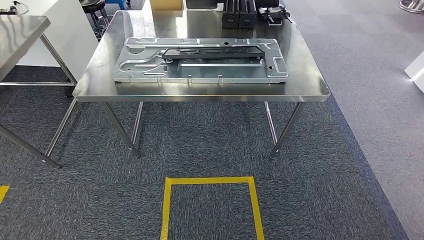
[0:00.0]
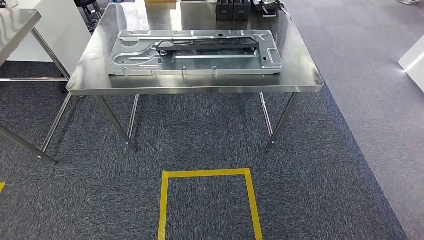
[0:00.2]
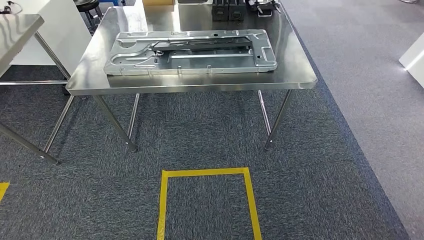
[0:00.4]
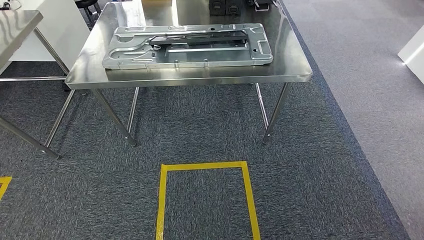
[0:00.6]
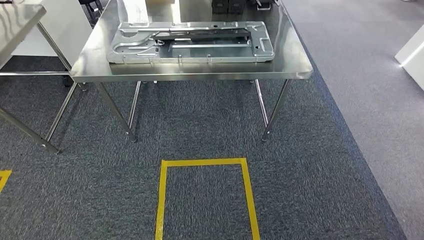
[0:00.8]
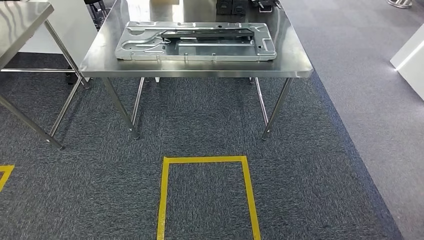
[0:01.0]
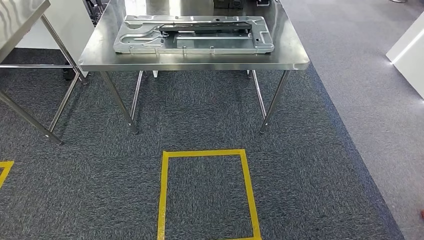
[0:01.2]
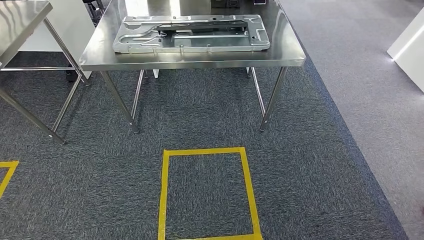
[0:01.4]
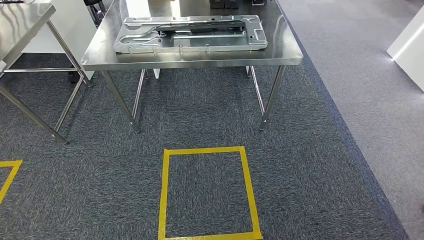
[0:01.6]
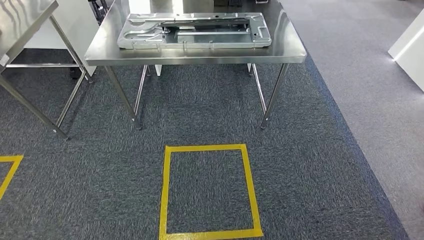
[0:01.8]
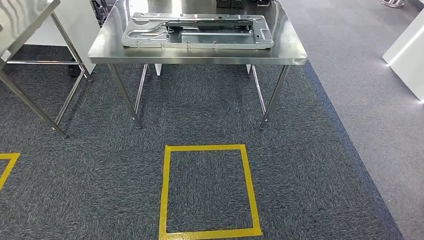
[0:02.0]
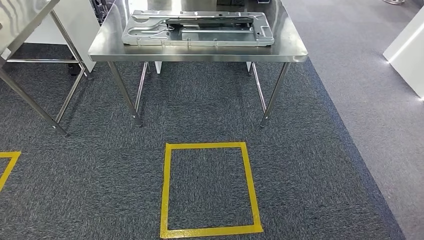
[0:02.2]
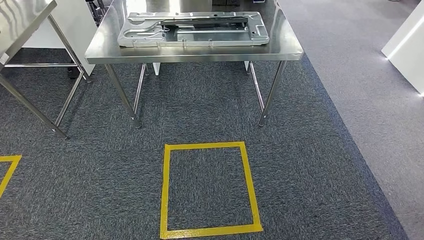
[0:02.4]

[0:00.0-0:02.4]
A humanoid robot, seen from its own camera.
Step, 0:00.0 to 0:02.4: Move to the initial position of the shelf.
0:01.2 to 0:02.4: The right hand shifts by approximately 5 cm.

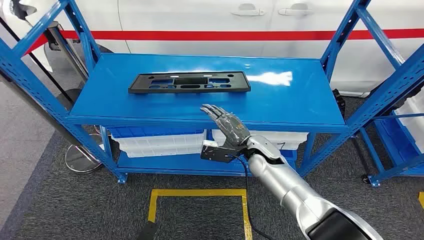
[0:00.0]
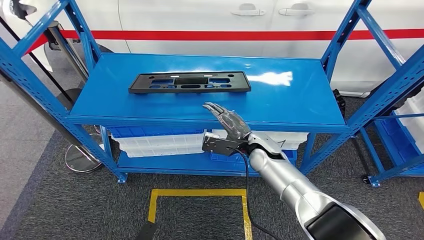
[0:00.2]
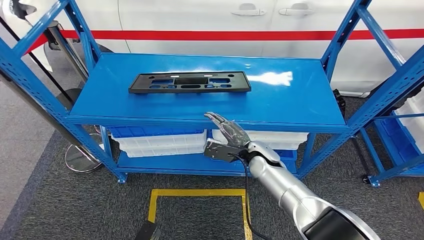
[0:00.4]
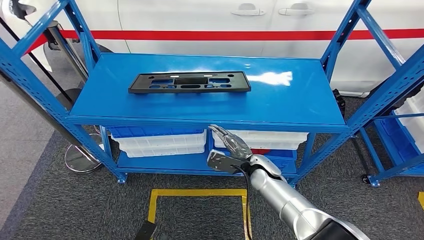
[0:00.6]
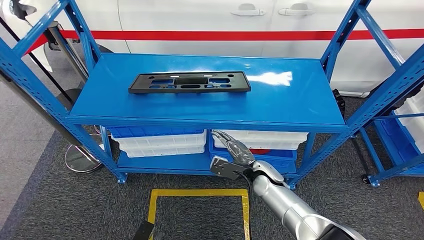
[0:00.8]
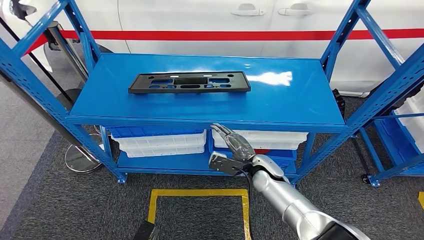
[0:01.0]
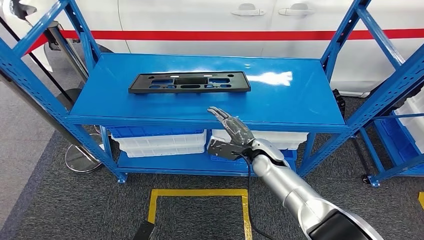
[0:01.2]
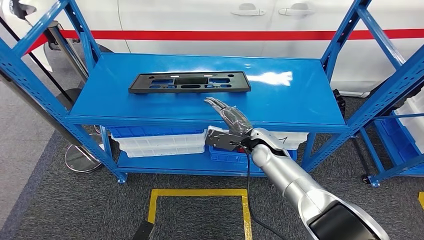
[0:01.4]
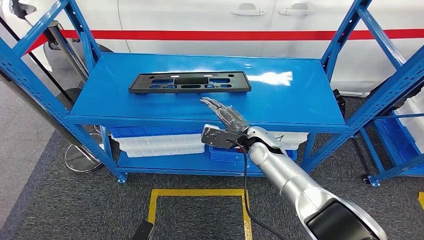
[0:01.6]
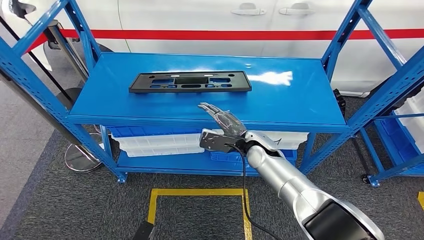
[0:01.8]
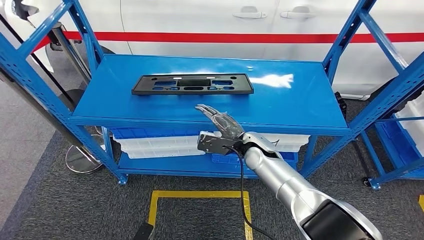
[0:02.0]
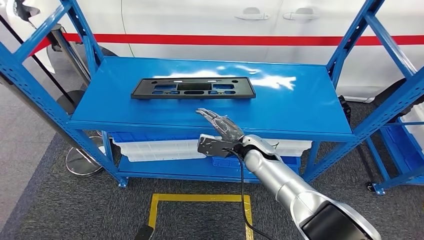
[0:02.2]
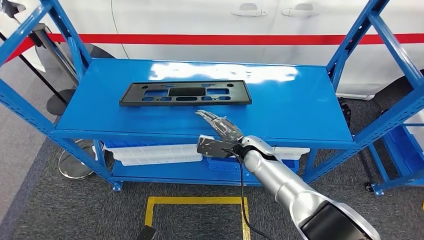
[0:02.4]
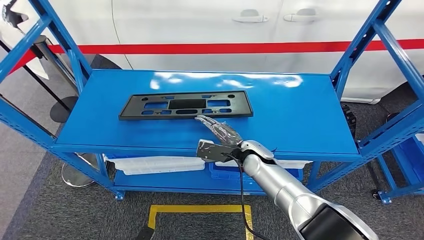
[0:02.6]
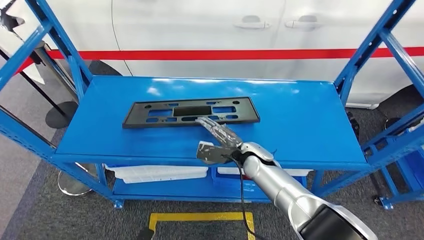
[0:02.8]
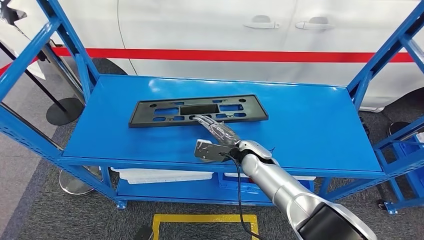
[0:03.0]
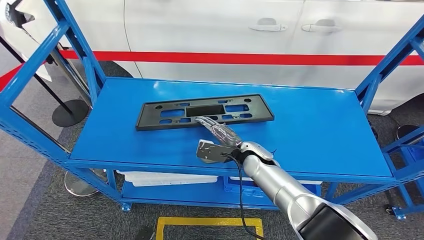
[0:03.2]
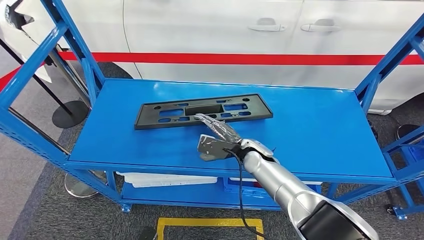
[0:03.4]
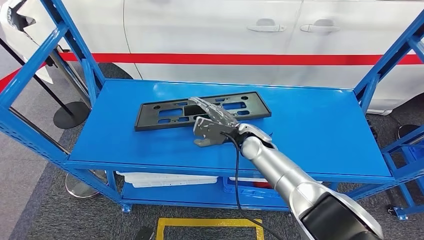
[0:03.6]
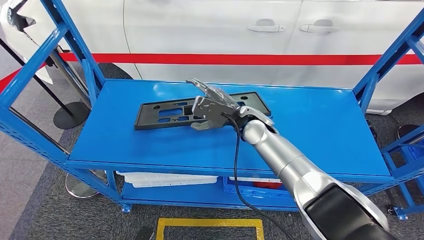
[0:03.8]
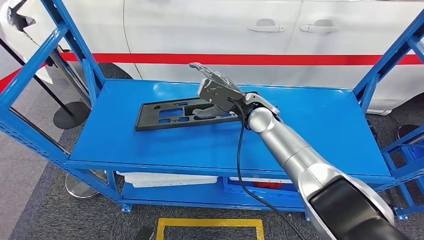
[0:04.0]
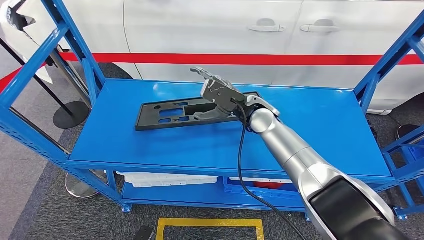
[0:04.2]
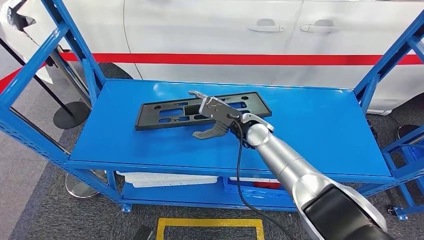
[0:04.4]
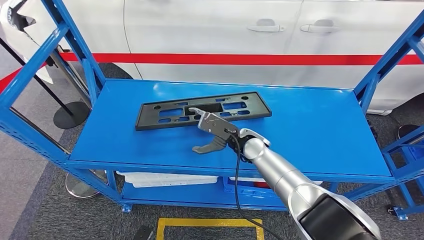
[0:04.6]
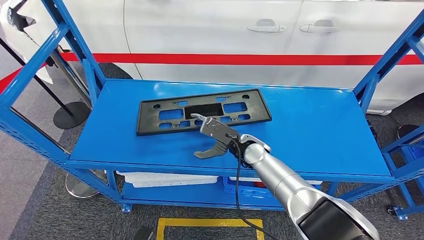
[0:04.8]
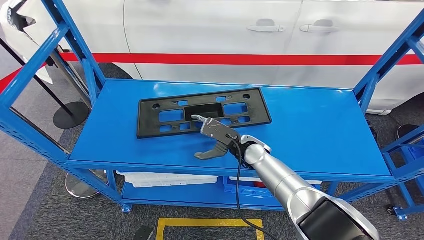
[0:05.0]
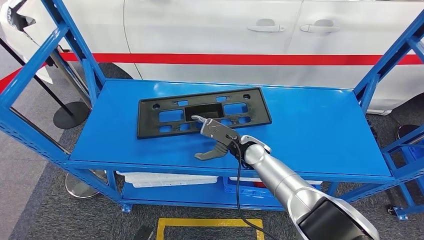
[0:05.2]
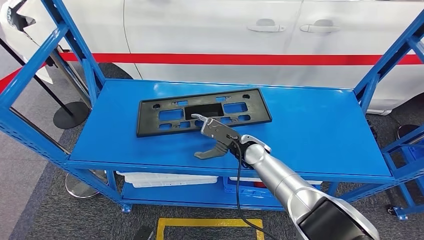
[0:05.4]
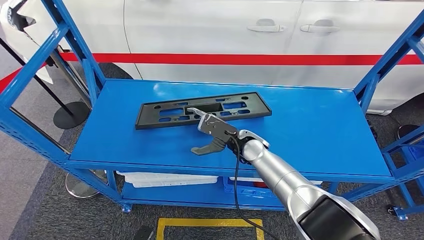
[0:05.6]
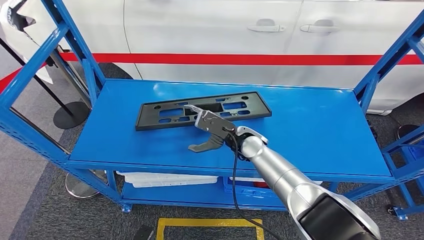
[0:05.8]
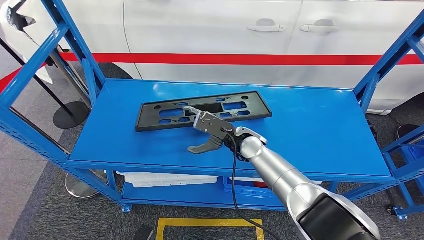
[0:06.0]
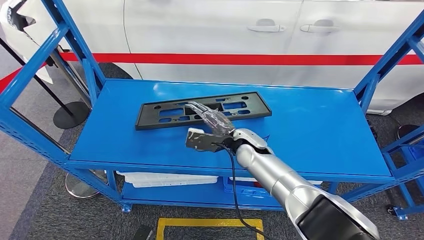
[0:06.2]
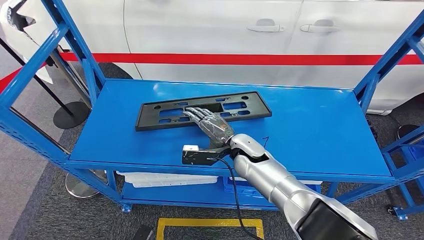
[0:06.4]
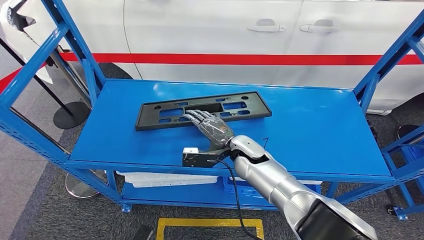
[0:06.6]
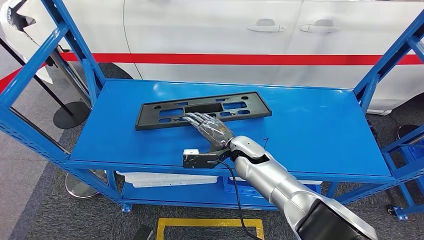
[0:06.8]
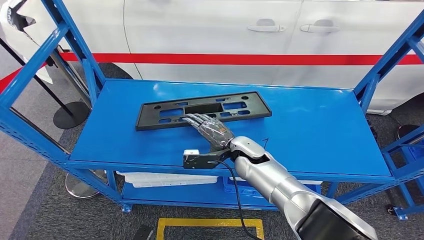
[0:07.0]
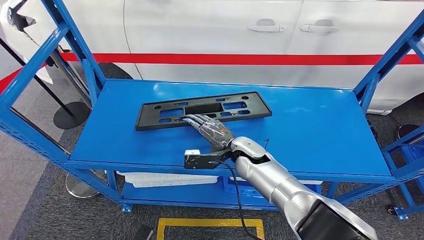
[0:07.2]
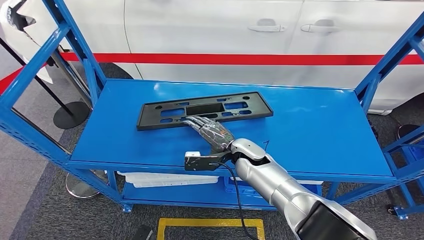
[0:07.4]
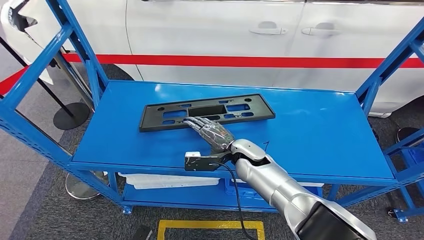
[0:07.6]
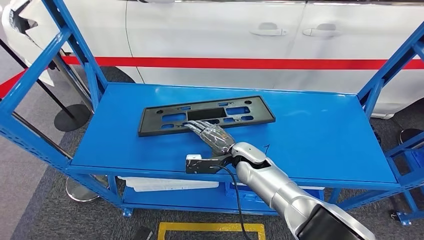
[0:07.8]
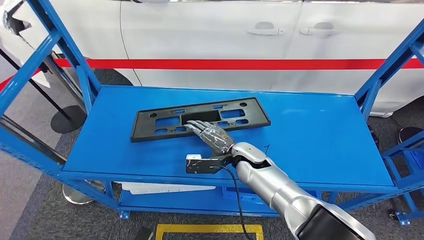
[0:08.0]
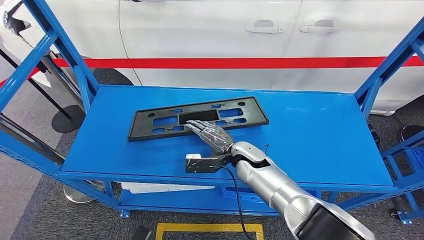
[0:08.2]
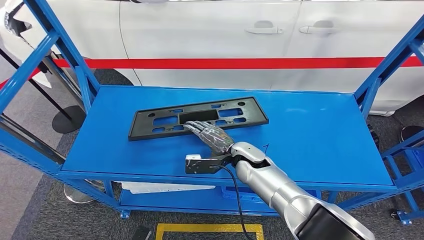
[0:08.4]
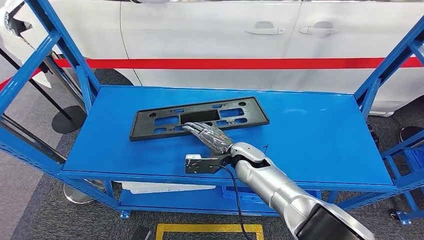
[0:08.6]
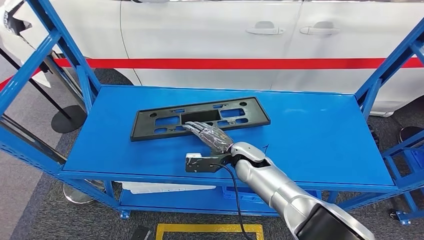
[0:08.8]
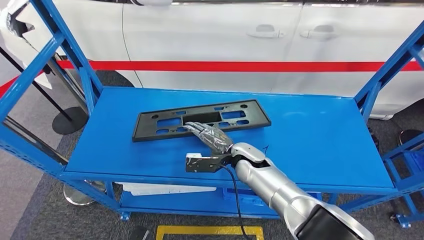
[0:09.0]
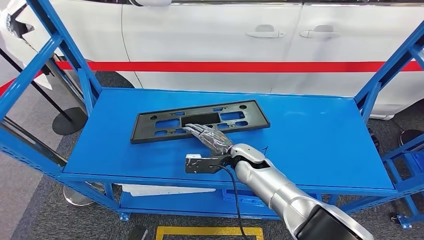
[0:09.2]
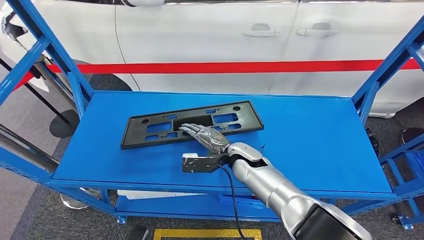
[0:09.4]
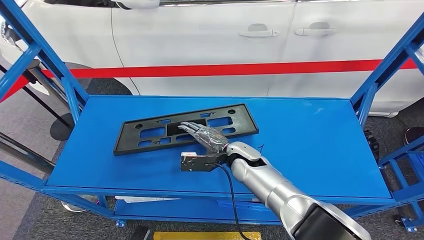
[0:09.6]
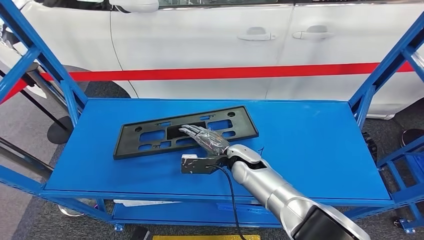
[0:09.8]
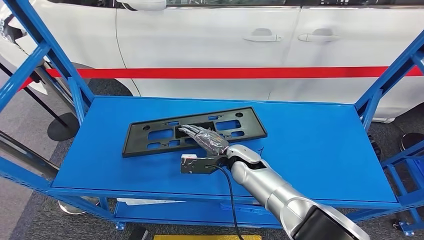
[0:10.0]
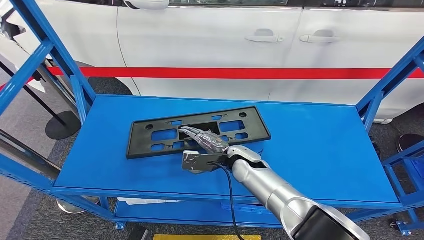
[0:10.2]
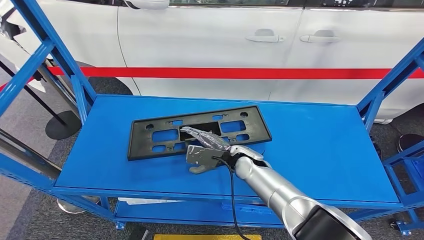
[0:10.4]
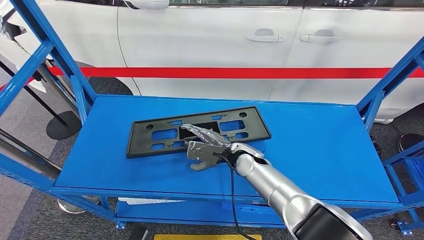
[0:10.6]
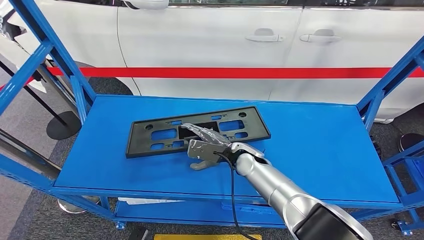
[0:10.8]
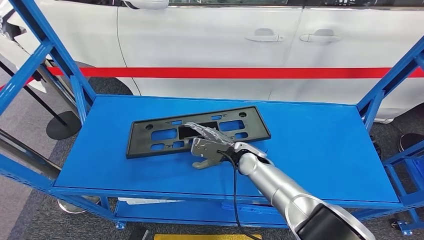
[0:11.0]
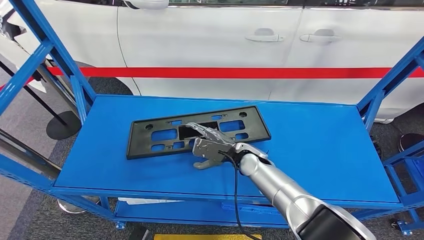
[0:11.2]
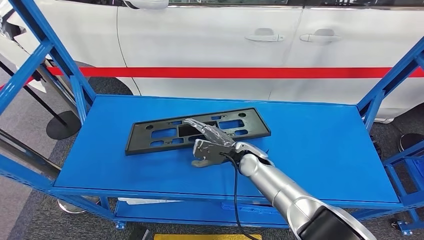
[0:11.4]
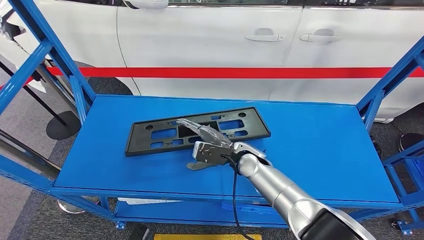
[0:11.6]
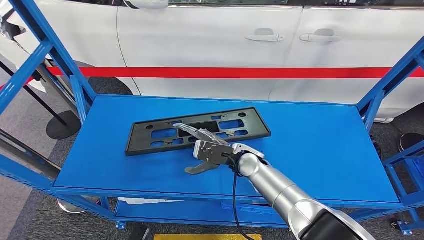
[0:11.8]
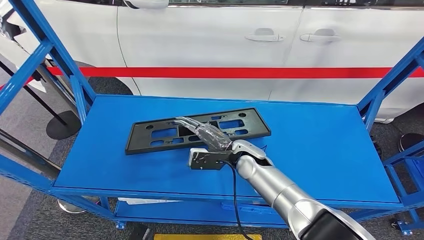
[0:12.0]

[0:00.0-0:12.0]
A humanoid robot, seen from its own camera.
0:10.4 to 0:12.0: The hands stay close to where they were, moving slightly.

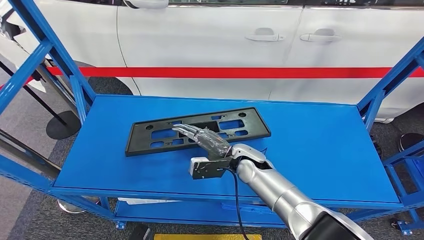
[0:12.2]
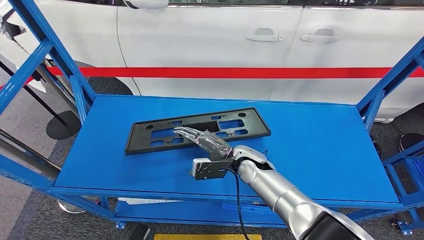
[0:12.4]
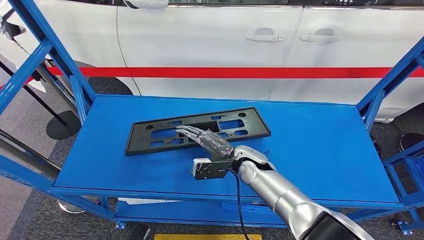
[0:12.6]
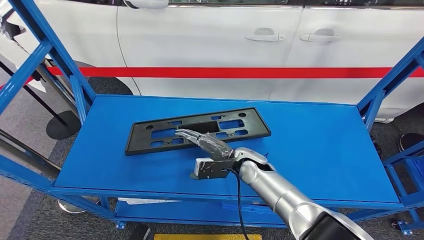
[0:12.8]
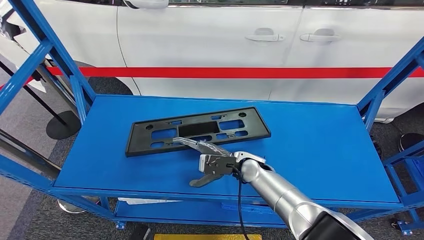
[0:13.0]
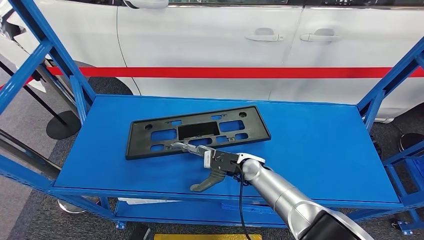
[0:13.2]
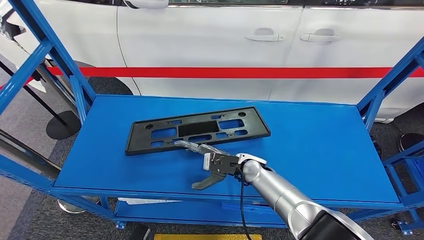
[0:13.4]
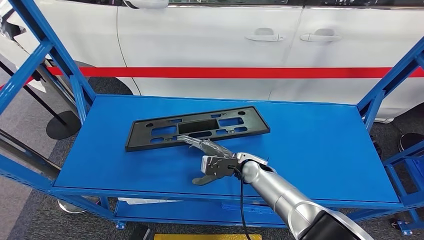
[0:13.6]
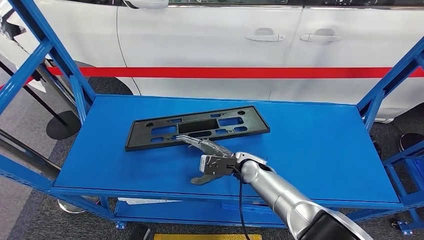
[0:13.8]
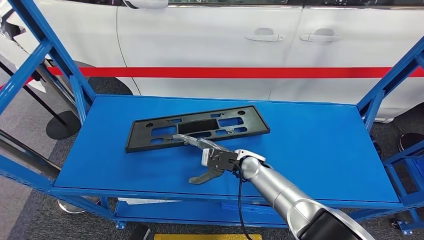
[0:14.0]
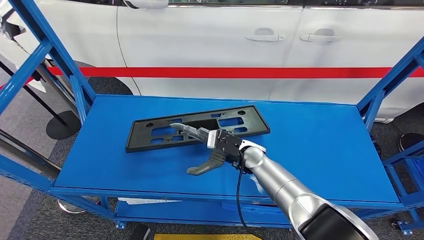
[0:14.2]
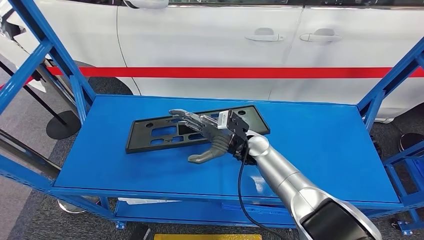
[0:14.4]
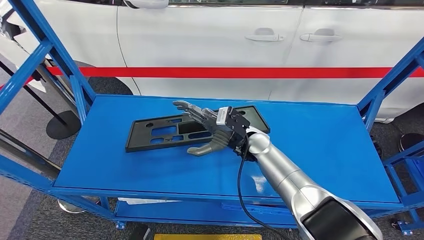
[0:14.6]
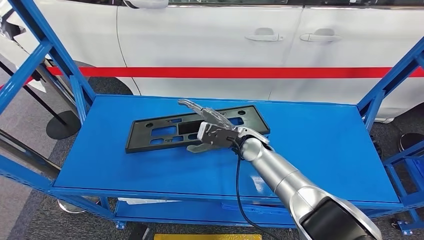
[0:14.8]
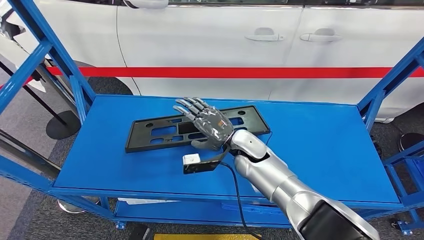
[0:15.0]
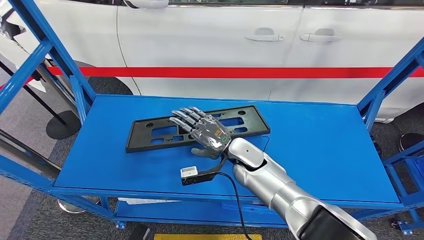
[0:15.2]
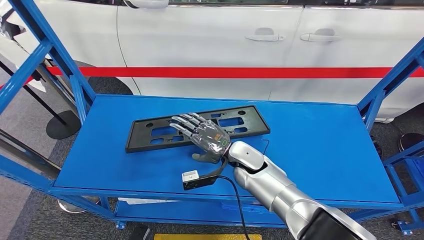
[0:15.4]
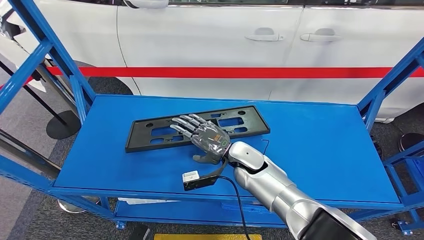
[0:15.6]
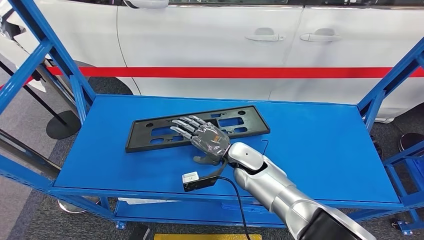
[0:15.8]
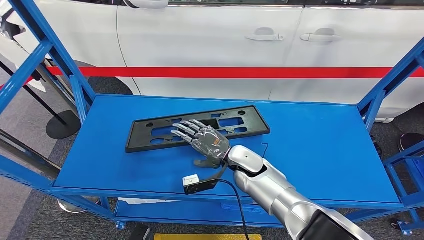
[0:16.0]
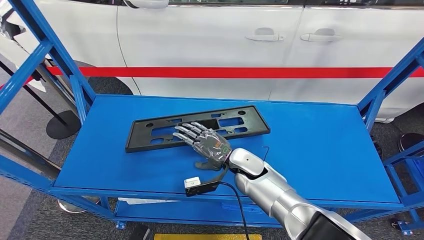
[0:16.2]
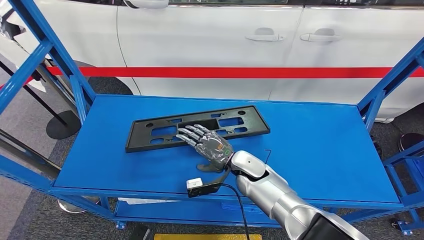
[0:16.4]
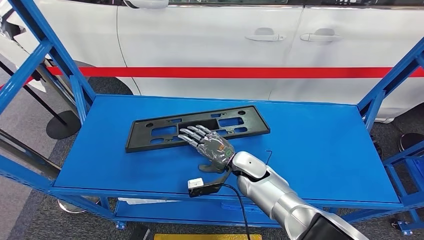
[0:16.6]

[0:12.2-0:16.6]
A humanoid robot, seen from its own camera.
0:15.2 to 0:16.6: The right hand moves approximately 5 cm.
